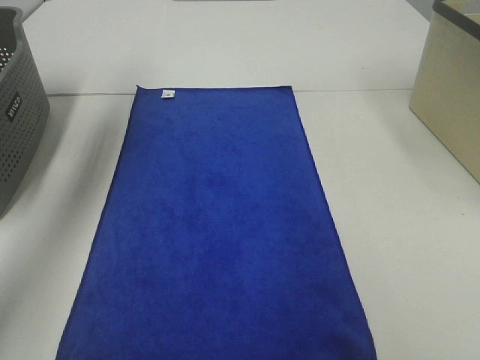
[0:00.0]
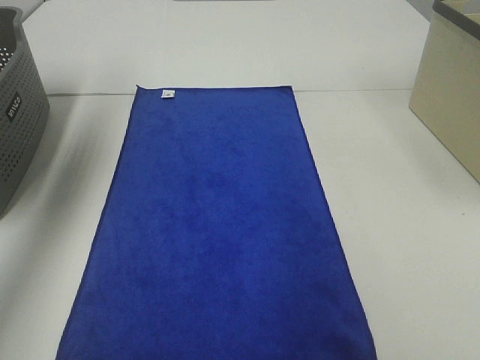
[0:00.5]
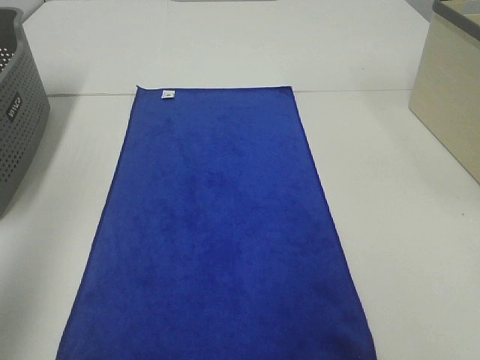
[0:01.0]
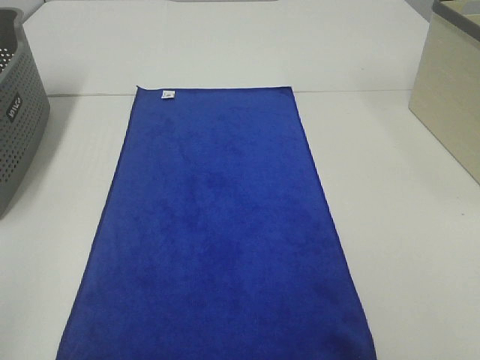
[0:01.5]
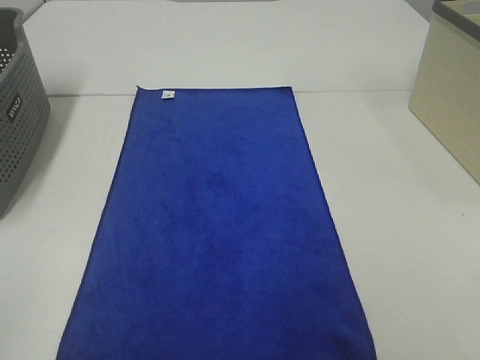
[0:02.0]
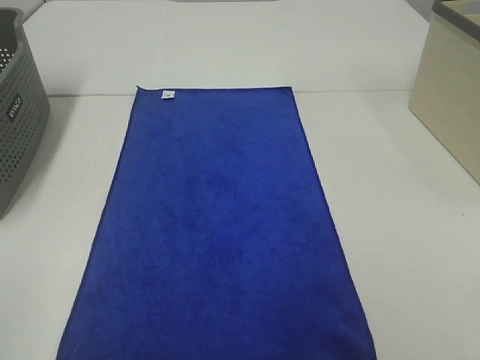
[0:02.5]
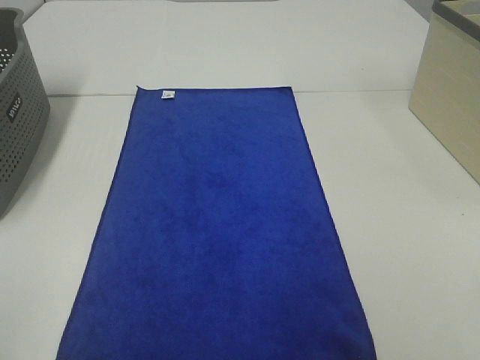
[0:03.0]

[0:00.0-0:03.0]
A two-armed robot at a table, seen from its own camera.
Task of the whole recording: Remove the towel and place it.
0:00.0 to 0:01.5: Both grippers travel together backward, approximately 40 cm.
